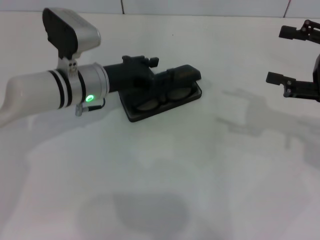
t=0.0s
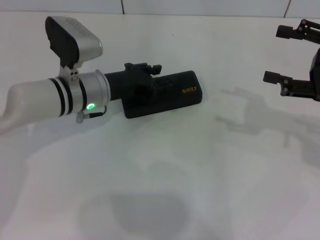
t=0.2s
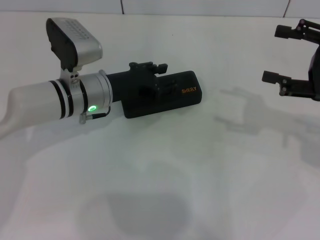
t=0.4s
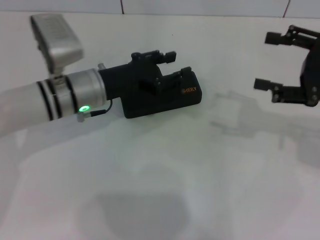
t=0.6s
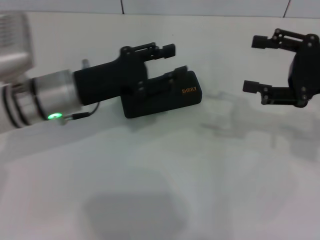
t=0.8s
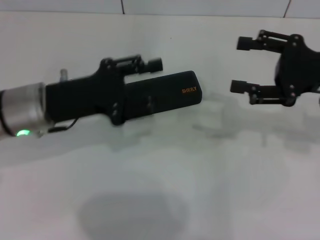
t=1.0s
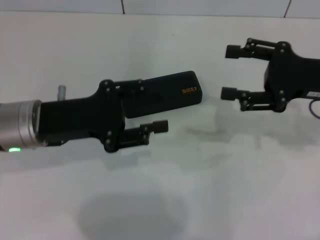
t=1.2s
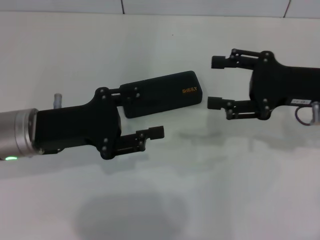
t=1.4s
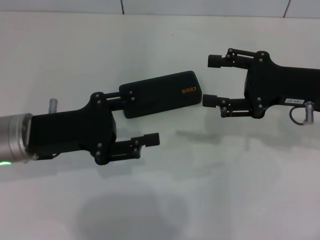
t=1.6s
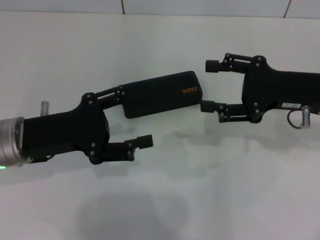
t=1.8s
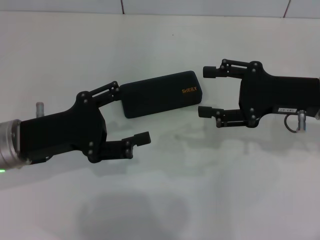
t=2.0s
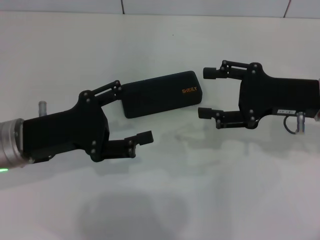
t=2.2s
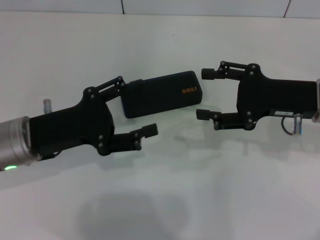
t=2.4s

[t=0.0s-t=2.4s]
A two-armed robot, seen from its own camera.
t=0.0s to t=1.2s: The right gripper moves to the left, about 5 cm; the left gripper heads backward and to the left, covering approximately 10 cm.
t=1.2s to t=2.4s: The left gripper opens up.

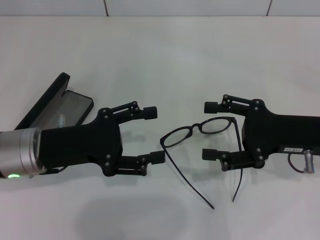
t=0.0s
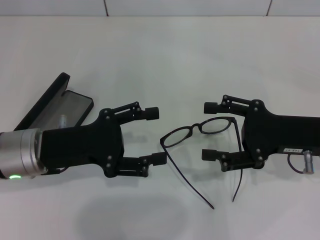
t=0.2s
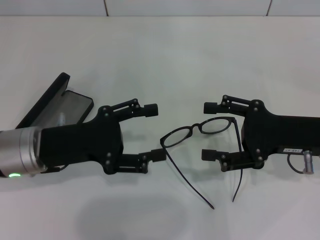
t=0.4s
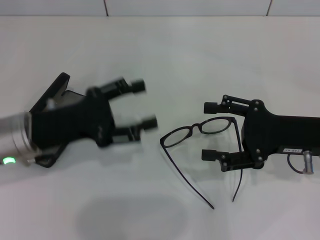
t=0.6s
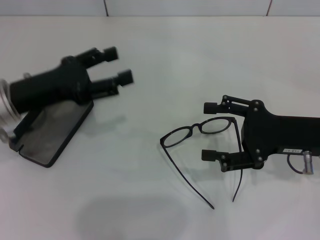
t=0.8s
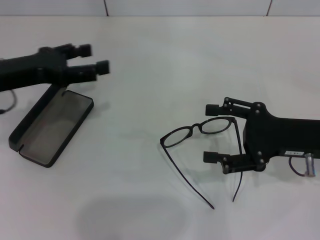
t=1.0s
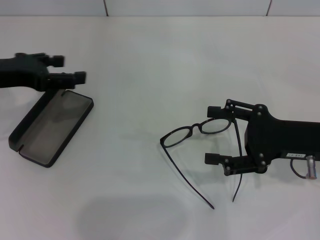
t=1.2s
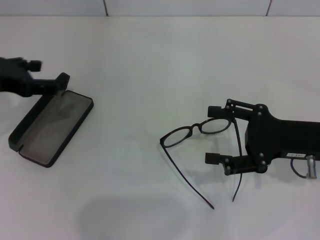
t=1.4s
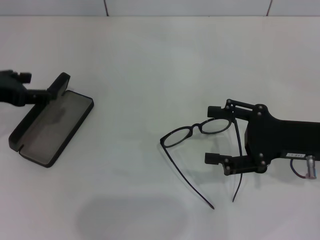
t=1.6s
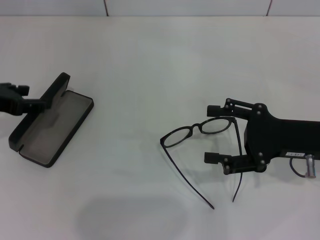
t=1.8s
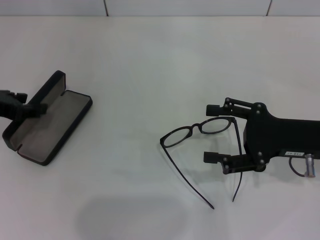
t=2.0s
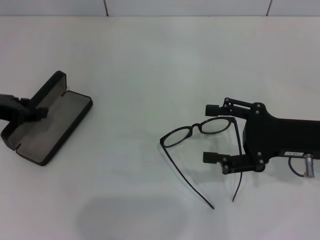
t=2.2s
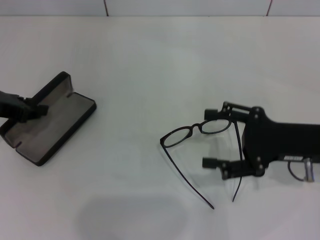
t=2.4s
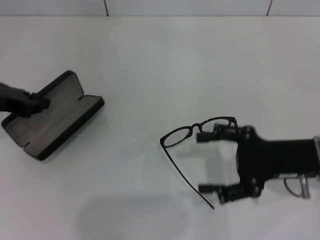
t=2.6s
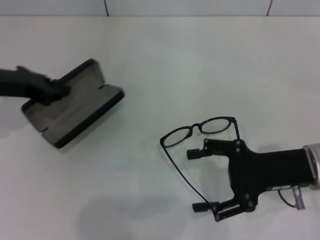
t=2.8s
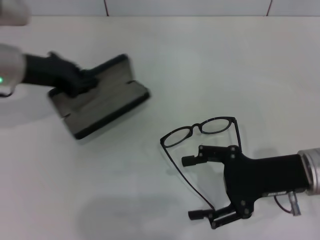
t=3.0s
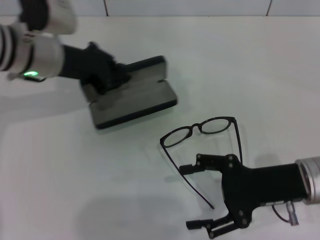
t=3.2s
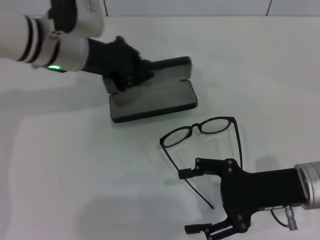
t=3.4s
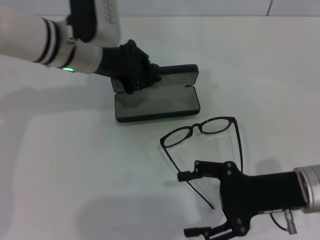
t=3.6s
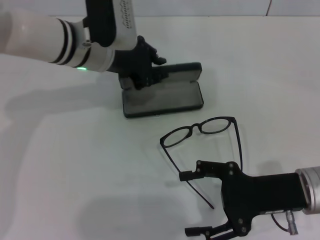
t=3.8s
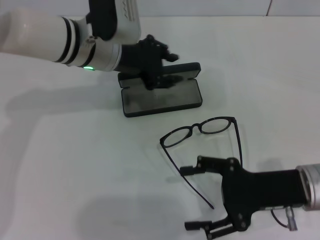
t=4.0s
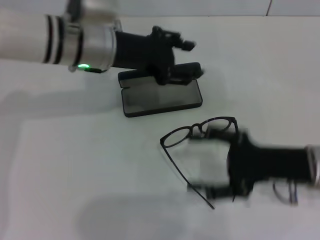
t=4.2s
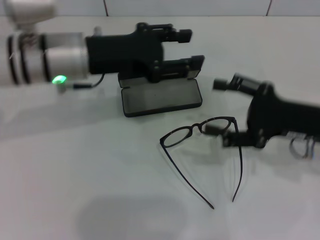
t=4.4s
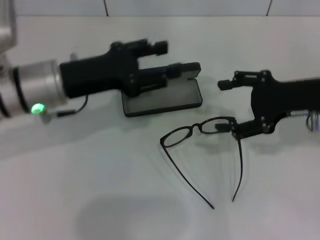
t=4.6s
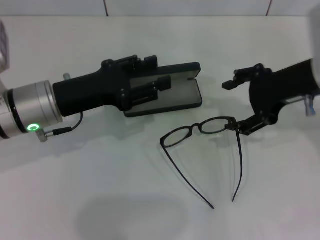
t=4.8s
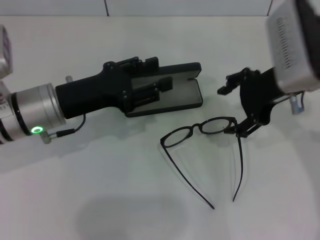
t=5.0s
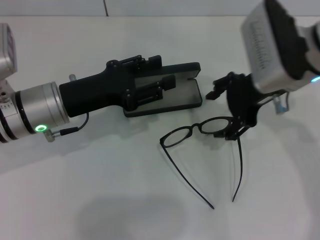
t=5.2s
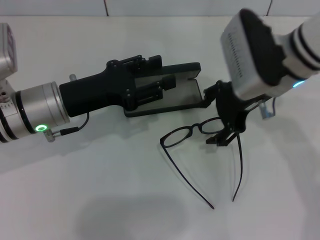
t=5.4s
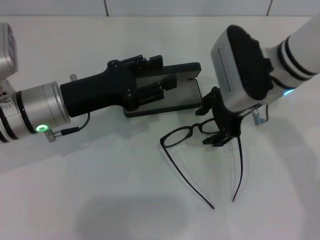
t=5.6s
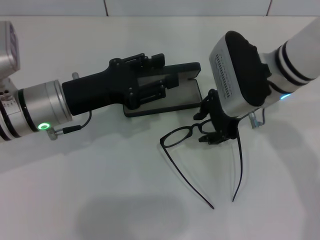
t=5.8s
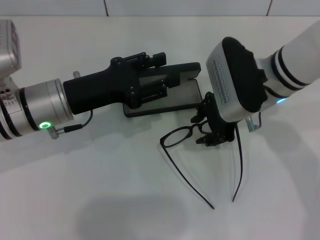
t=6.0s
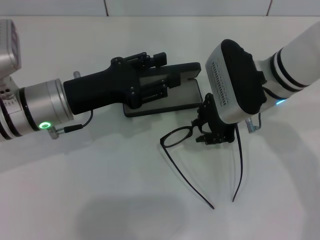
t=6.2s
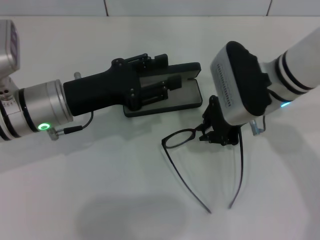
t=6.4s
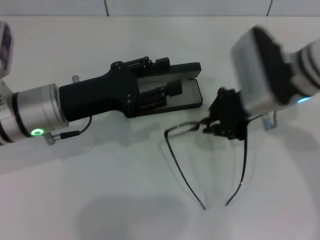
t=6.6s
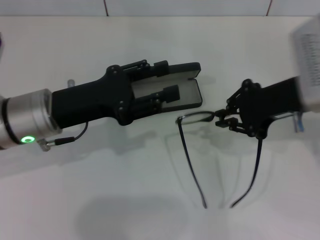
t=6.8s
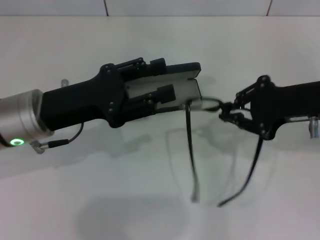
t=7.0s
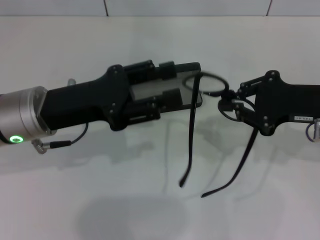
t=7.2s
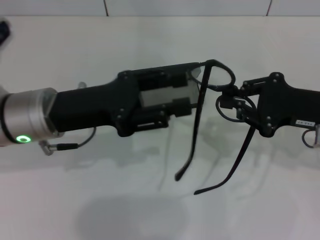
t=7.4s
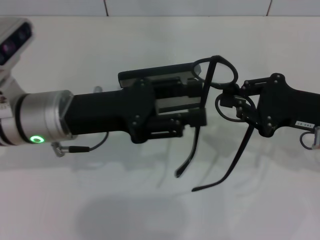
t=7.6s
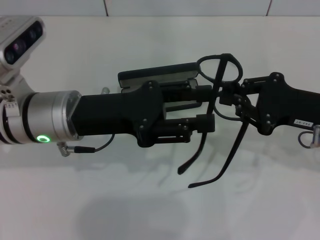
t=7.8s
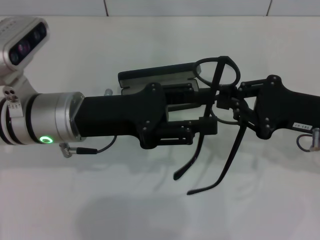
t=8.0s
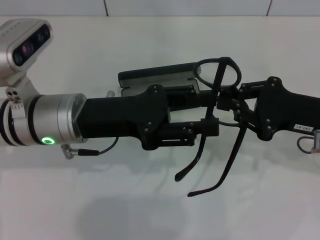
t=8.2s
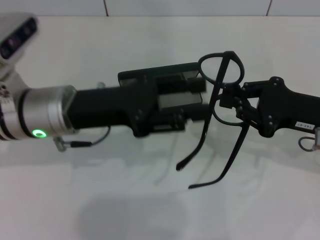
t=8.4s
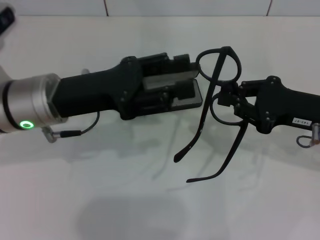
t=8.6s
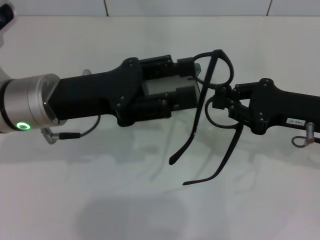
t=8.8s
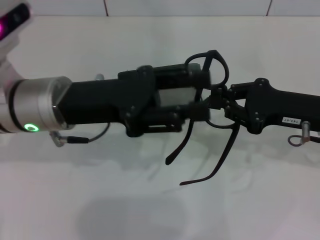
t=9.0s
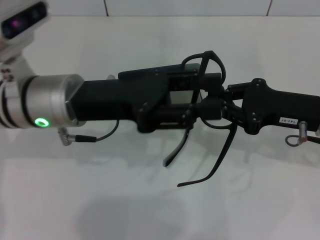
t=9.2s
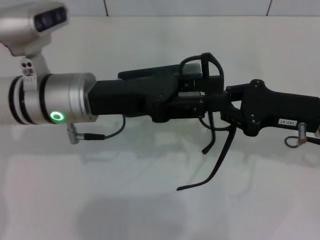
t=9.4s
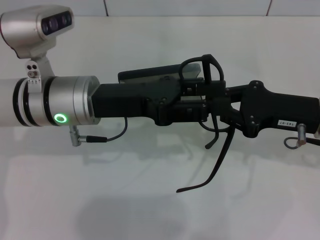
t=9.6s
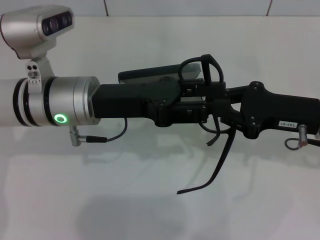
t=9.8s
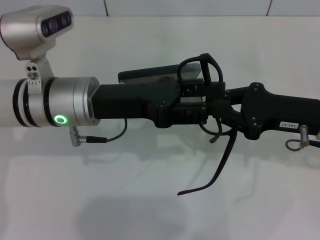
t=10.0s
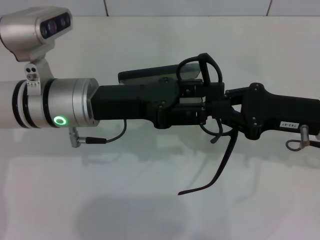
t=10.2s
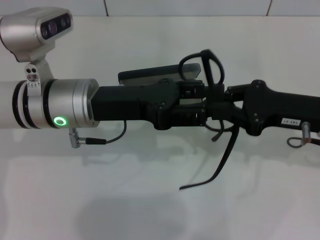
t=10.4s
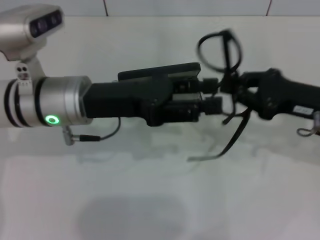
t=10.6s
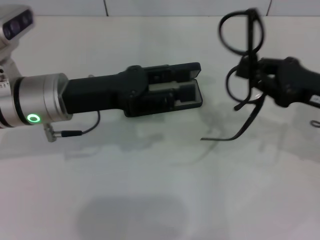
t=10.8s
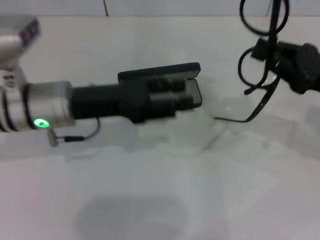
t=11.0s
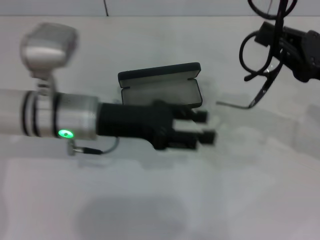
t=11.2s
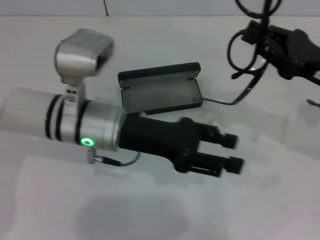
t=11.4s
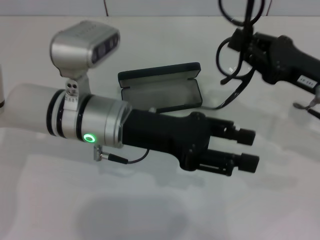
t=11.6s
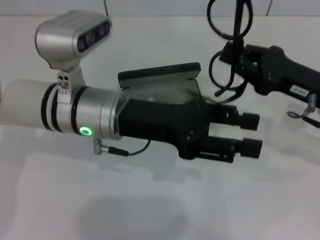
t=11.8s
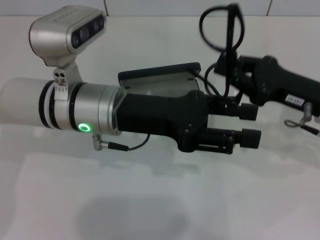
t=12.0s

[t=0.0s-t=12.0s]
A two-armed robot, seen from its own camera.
Step, t=0.0s to t=2.4s: Grab the glasses case with your left hand.
Step, t=2.6s to t=3.8s: Place the glasses case in the center of the table with your left hand.
Step, t=4.0s to t=6.2s: Grab the eyeglass frame with your right hand.
t=0.0s to t=1.6s: The left gripper travels to the left and upward by some 10 cm.
t=1.6s to t=3.0s: The left gripper travels to the right and forward by some 10 cm, and closes.
t=3.0s to t=4.4s: The left gripper moves to the right, roughly 10 cm, and opens.
t=4.4s to t=6.0s: The right gripper is displaced to the left and forward by about 15 cm, and closes. Meanwhile the left gripper goes some 5 cm downward.
t=6.0s to t=7.6s: The right gripper shifts roughly 15 cm to the right and backward, and closes up.
t=7.6s to t=10.4s: The grippers move only a little.

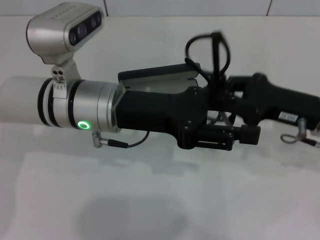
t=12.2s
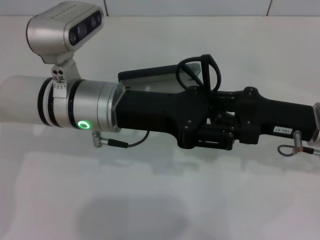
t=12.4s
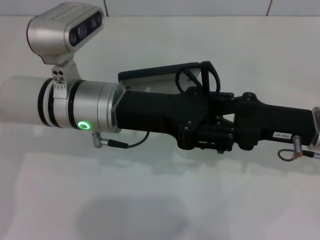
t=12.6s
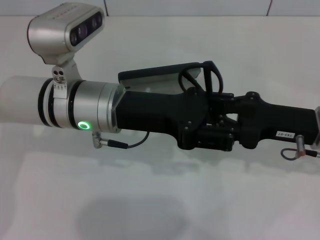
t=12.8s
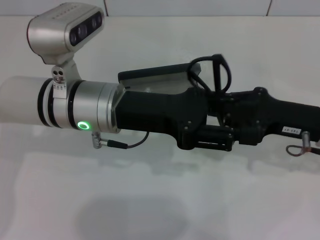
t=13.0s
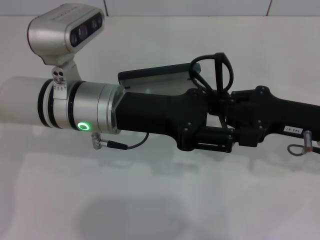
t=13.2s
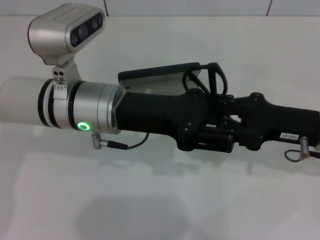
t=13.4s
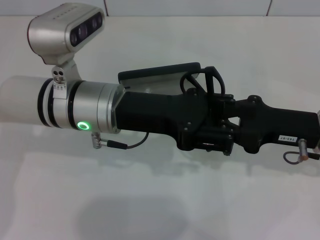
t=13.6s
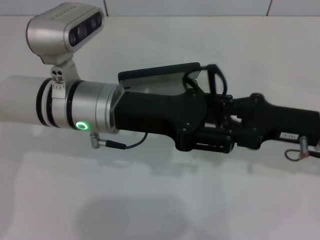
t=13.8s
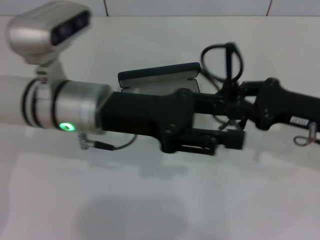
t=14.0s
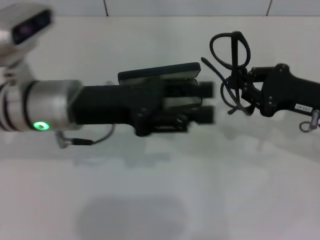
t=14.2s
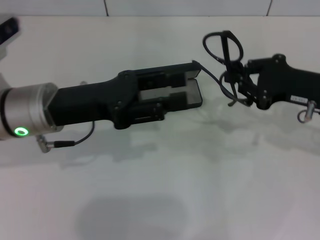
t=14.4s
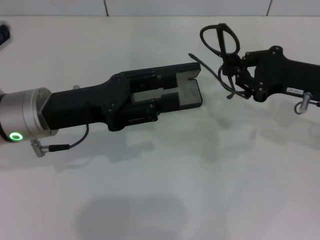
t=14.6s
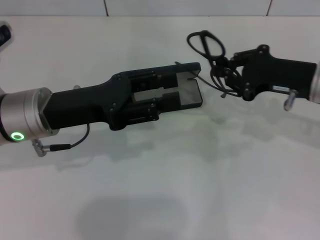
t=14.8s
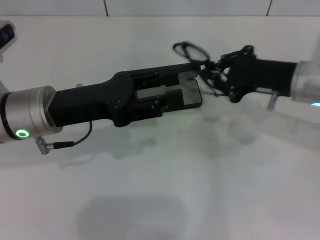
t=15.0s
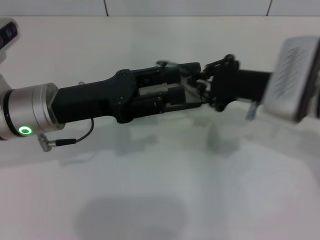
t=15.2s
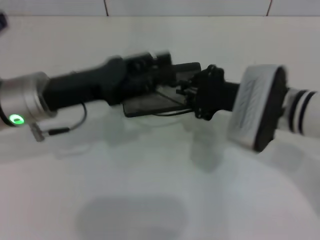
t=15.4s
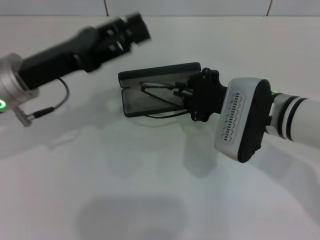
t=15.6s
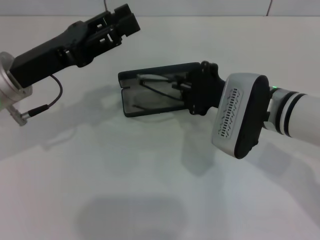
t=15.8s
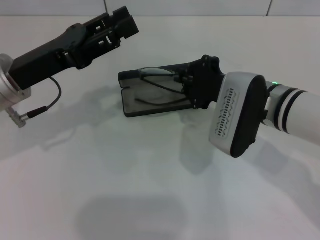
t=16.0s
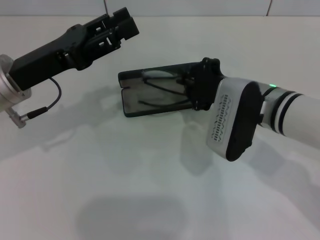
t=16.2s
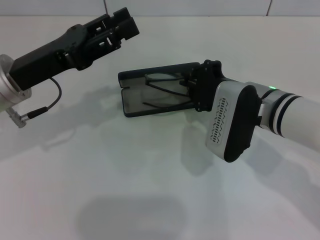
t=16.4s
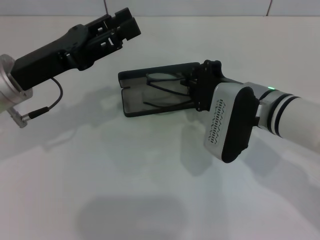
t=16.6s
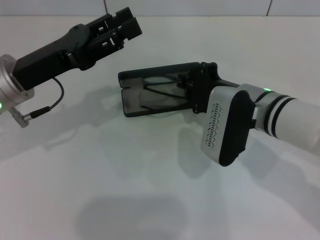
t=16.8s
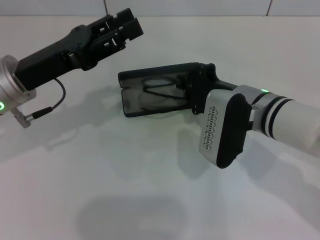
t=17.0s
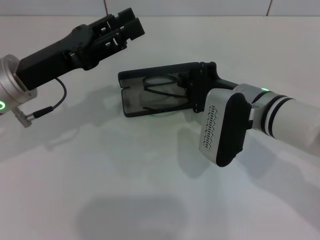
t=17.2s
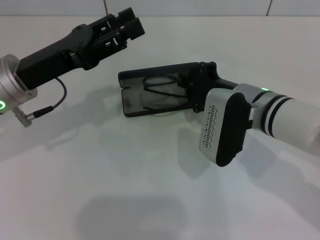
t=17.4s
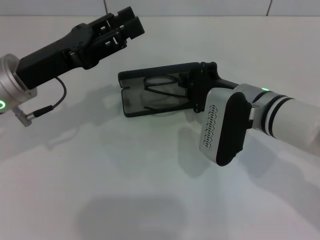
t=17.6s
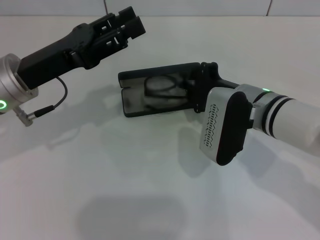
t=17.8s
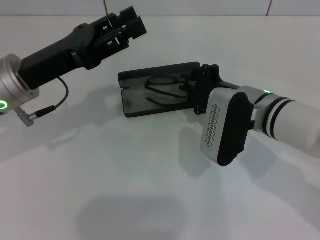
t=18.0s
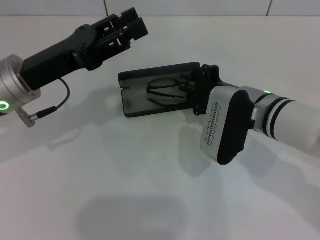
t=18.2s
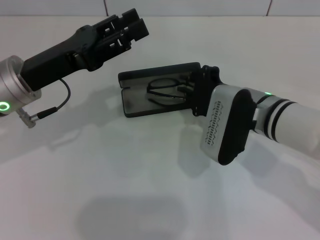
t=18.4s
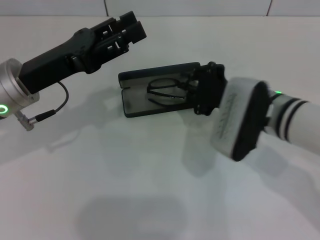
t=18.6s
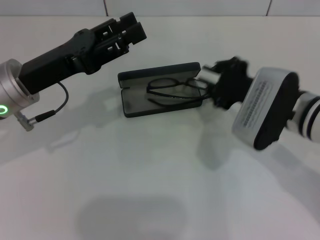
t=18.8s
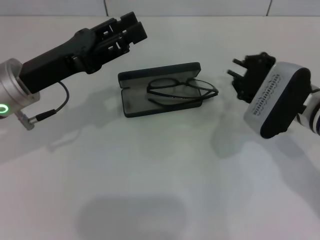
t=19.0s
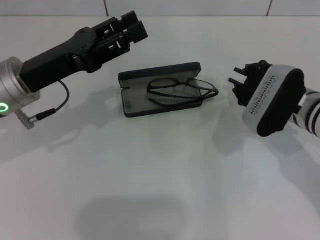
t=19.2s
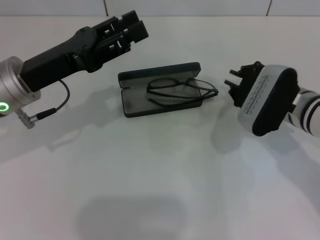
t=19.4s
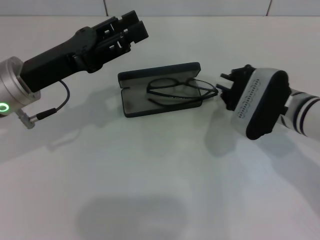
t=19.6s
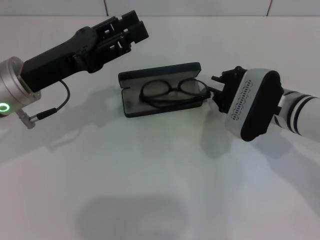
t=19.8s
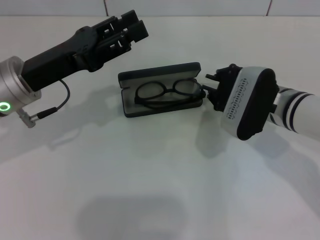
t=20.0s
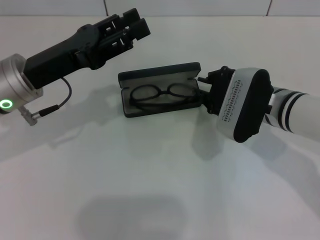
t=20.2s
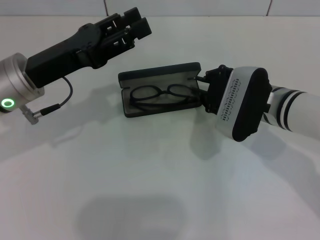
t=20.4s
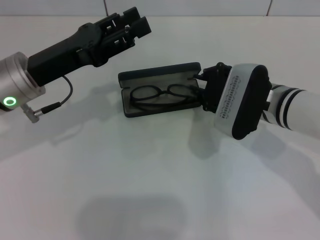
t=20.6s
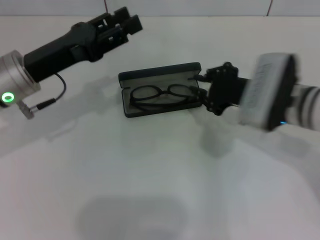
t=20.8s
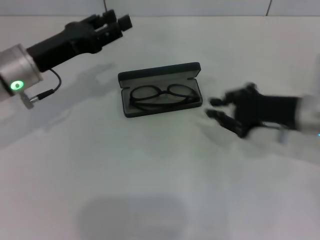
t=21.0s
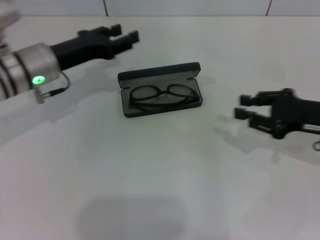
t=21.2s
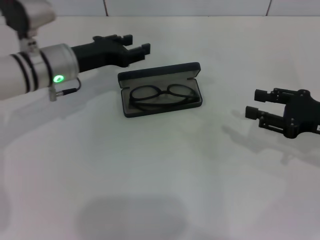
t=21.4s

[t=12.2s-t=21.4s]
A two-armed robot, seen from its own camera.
Step, t=12.8s to t=20.2s: Put the glasses into the case with your right hand.
t=12.2s to t=13.8s: There are only small adjustments of the grippers.
t=13.8s to t=15.2s: The two grippers go approximately 5 cm to the left.
t=15.2s to t=16.8s: The right gripper is displaced to the left by about 5 cm.
t=16.8s to t=18.4s: Neither gripper changes place.
t=18.4s to t=19.8s: The right gripper shifts by some 5 cm.
t=19.8s to t=21.4s: The right gripper is displaced to the right by about 15 cm, while the left gripper travels forward by about 10 cm.
